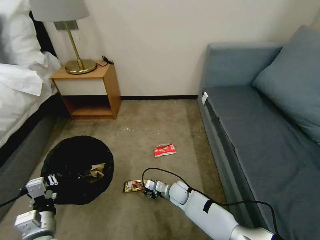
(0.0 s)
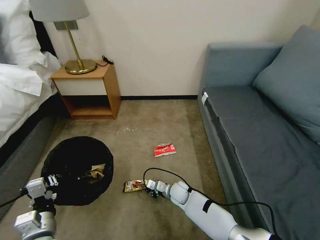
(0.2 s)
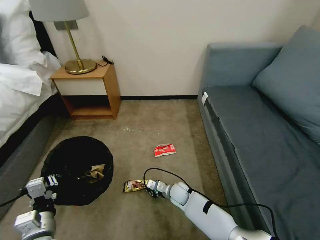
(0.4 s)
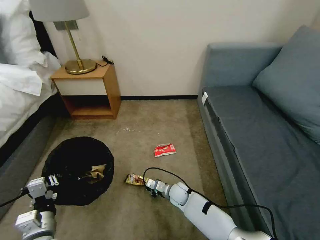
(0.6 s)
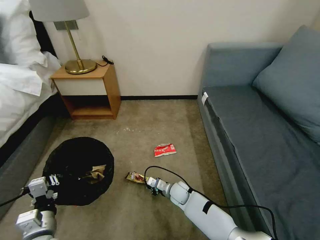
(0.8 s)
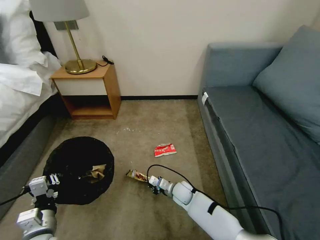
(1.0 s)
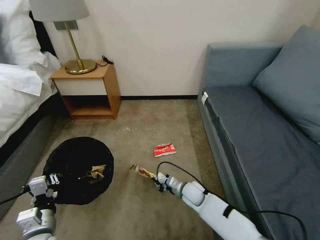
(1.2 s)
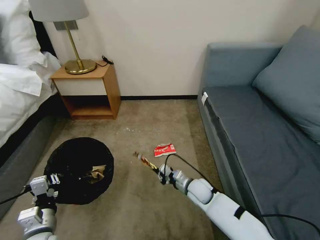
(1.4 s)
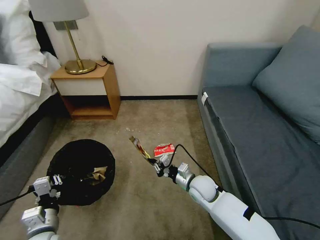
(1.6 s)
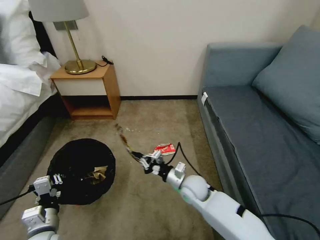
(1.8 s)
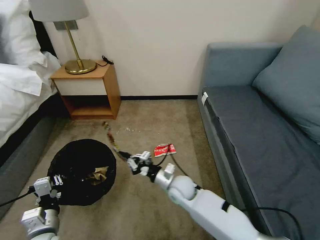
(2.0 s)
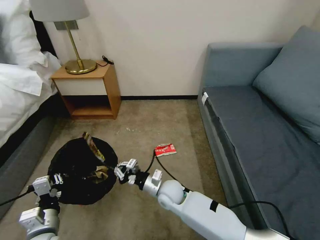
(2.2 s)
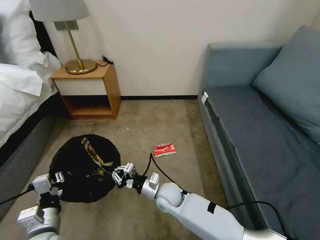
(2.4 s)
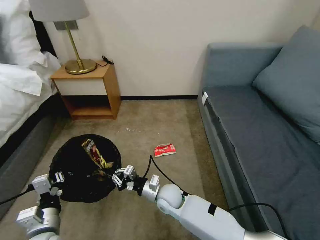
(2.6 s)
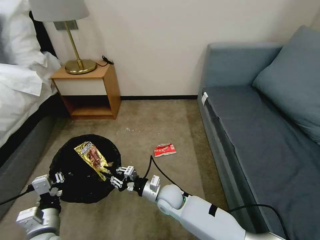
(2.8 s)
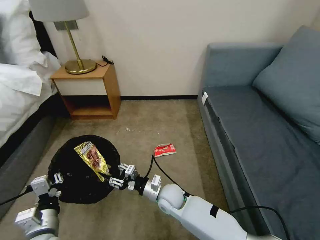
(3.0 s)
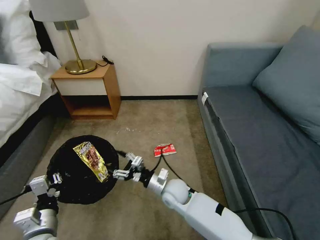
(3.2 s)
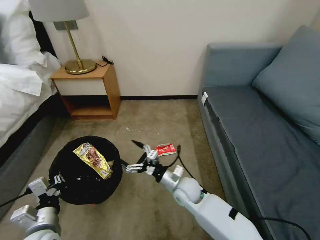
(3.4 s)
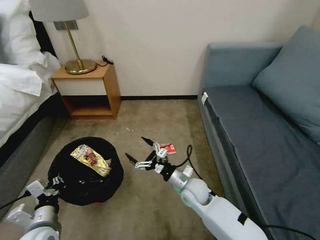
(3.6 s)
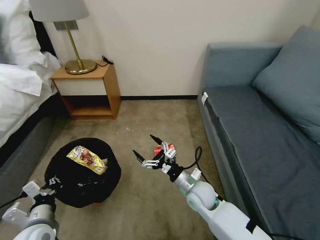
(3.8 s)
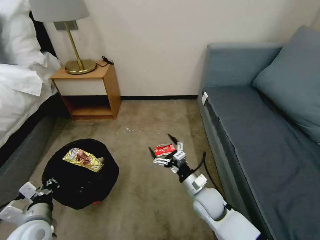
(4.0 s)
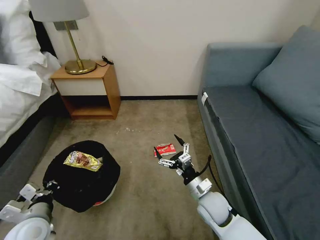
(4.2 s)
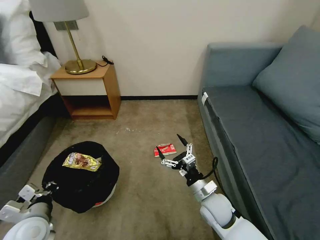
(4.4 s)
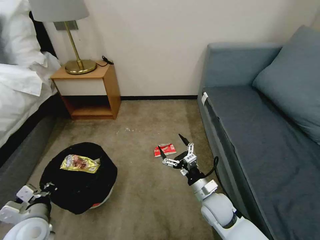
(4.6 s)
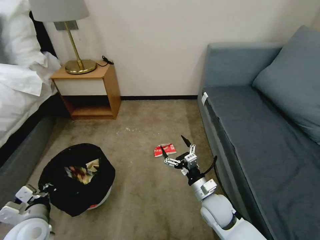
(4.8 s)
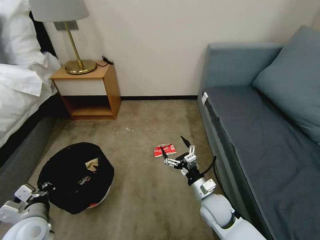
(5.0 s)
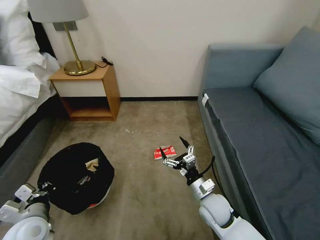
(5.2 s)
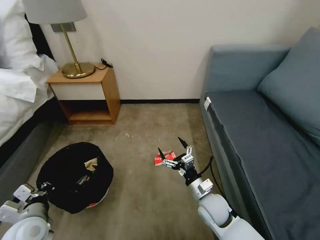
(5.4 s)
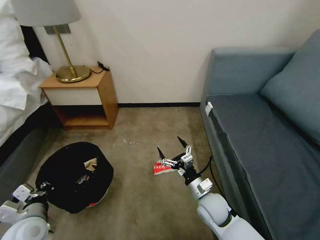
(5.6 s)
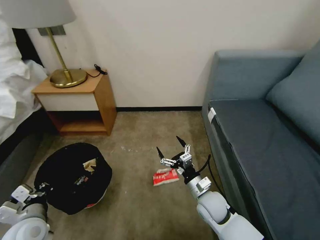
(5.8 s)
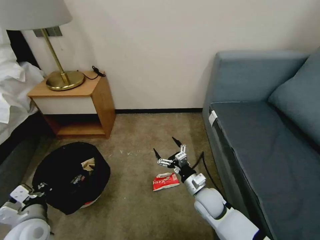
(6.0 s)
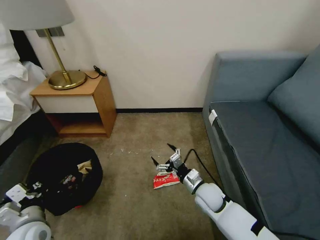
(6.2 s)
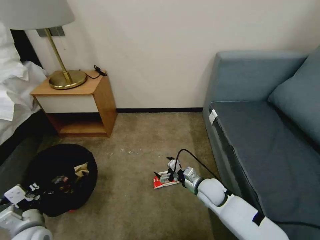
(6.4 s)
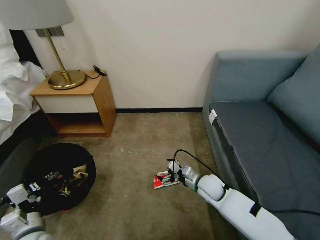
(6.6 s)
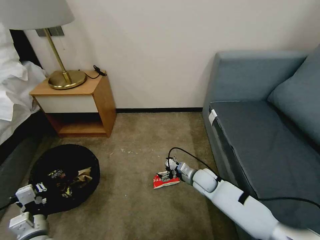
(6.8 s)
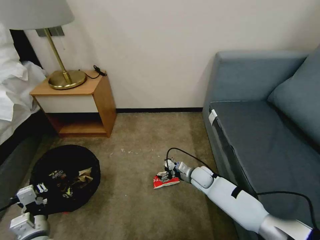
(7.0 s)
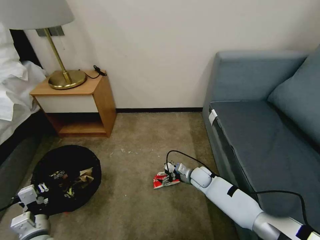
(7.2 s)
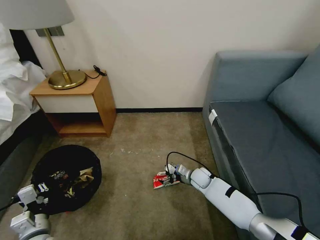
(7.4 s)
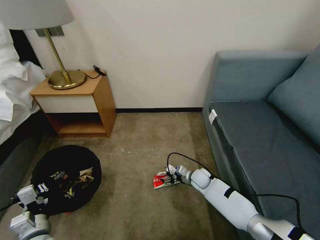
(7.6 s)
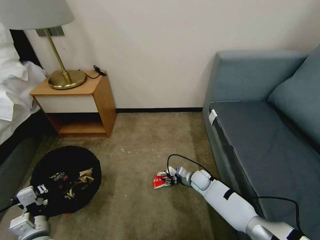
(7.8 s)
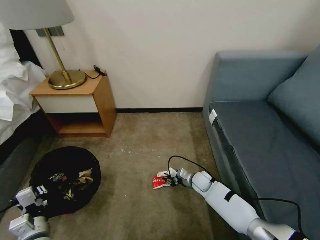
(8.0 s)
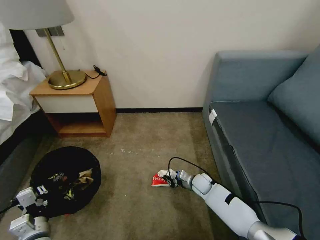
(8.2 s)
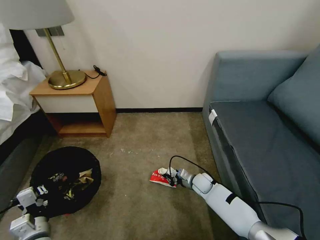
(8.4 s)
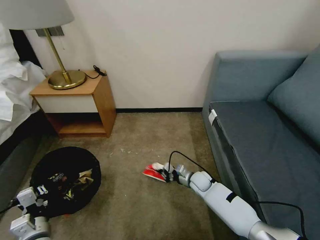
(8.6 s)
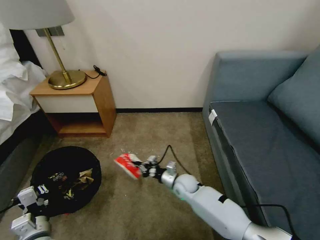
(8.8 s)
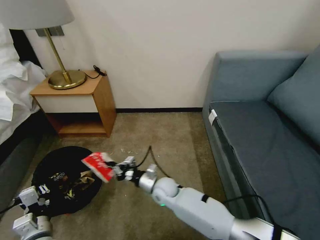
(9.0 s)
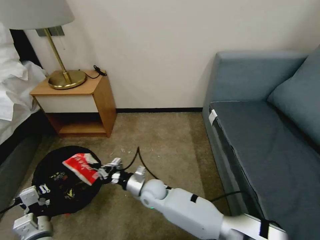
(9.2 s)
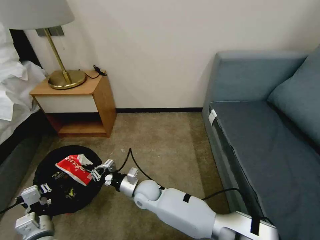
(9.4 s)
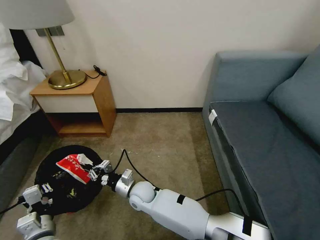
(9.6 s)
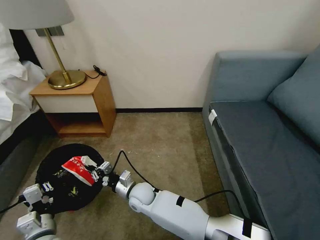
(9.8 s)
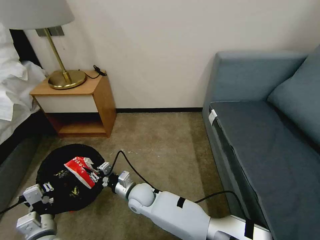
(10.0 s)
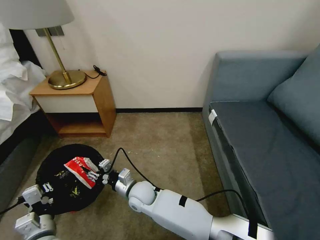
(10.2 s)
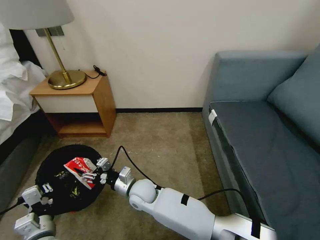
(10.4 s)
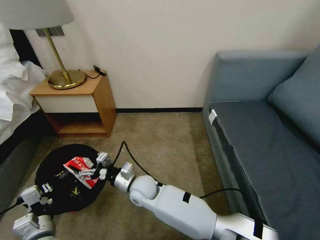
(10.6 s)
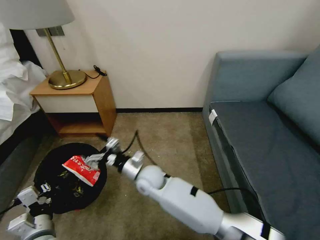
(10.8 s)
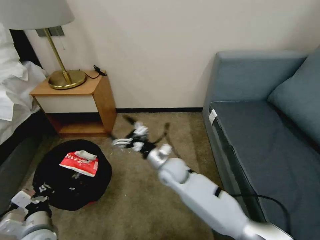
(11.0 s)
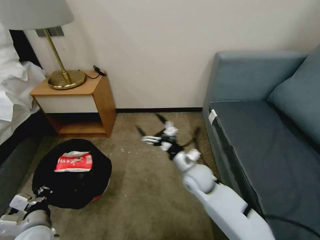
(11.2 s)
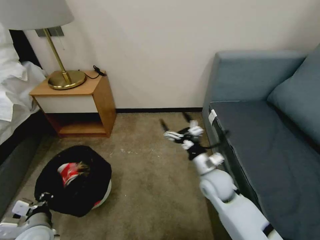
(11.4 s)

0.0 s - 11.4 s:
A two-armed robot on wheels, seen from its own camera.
Task of the whole recording: Pick up the trash bin, then pick up the garbage on the floor and place it into the trash bin.
0.0 s - 1.4 s: The right gripper is displaced to the right and upward by some 10 cm, and closes up.
1.4 s - 2.8 s: The right gripper heads to the left, covering about 10 cm.
2.8 s - 4.2 s: The left gripper changes place by some 5 cm. Meanwhile the right gripper goes about 15 cm to the right, and opens.
5.6 s - 7.2 s: The right gripper heads forward and downward, covering roughly 15 cm. Meanwhile the left gripper goes about 5 cm downward.
7.2 s - 8.6 s: The right gripper closes up.
8.6 s - 10.0 s: The right gripper travels to the left by about 25 cm.
10.0 s - 11.4 s: The right gripper moves to the right and upward, approximately 15 cm, and opens up.

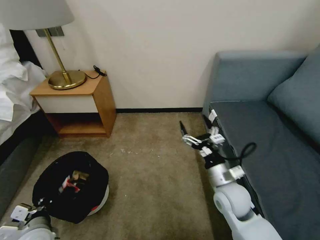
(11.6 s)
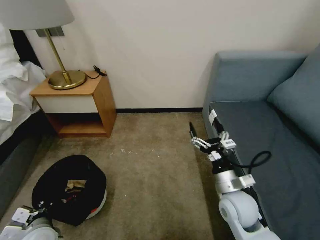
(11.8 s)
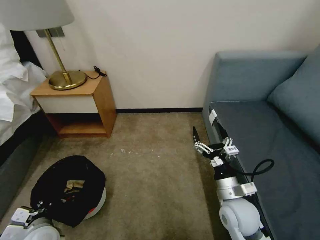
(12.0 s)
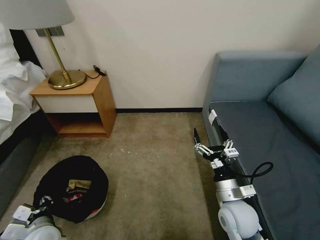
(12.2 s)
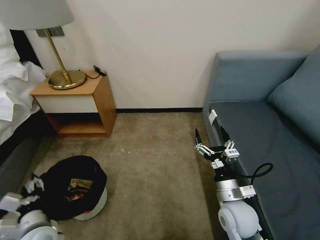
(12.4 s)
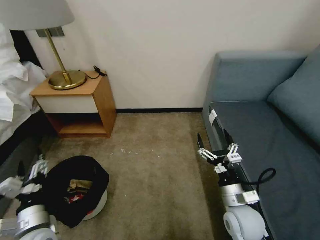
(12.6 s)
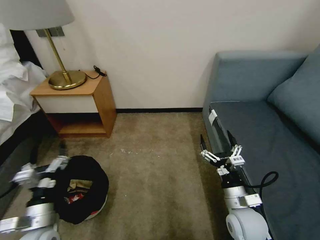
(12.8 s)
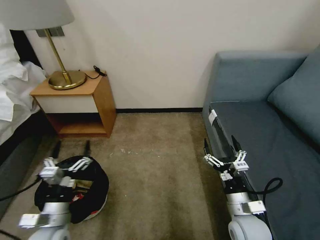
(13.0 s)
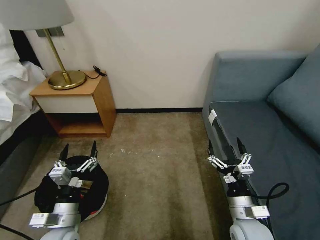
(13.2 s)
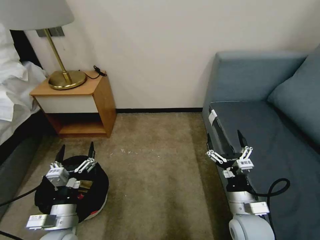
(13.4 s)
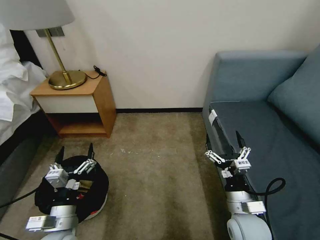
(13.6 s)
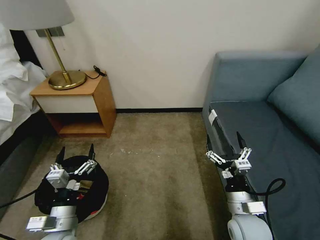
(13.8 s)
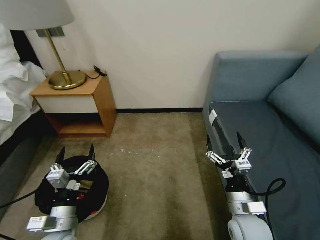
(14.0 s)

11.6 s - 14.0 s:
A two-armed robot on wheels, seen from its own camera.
Task of the whole recording: Pick up the trash bin, then pick up the garbage on the floor and place it into the trash bin.
11.6 s - 12.8 s: The left gripper opens, while the right gripper shifts approximately 15 cm backward and to the right.
12.8 s - 14.0 s: The left gripper goes approximately 5 cm to the right.

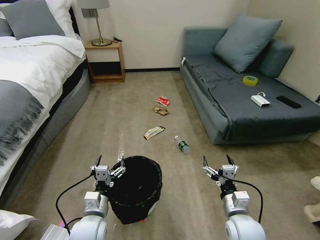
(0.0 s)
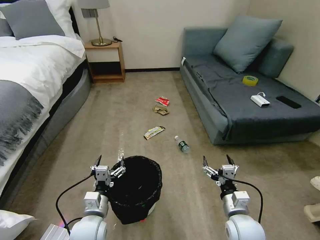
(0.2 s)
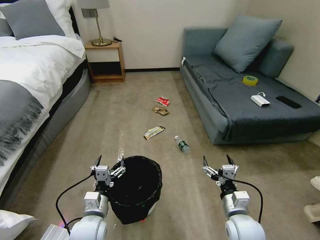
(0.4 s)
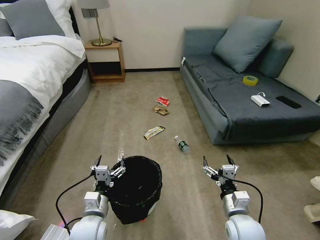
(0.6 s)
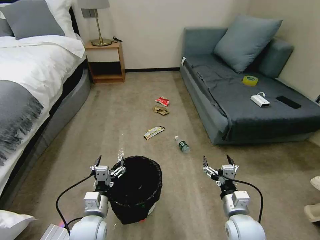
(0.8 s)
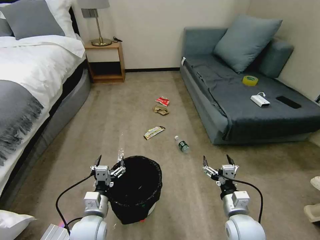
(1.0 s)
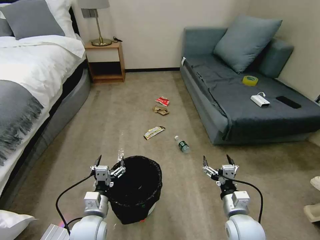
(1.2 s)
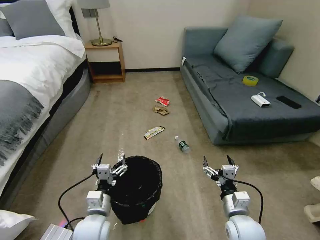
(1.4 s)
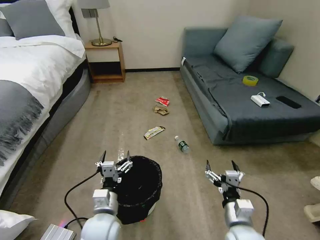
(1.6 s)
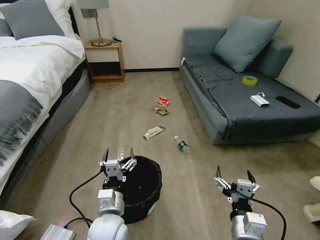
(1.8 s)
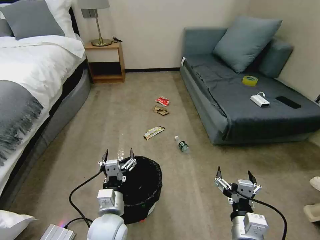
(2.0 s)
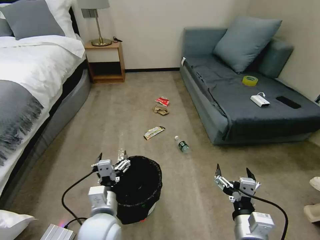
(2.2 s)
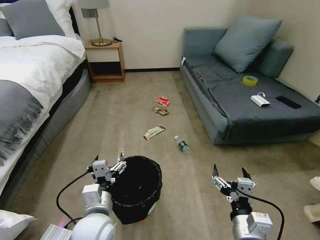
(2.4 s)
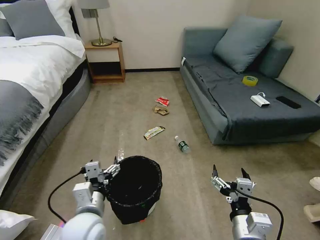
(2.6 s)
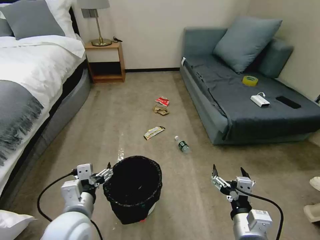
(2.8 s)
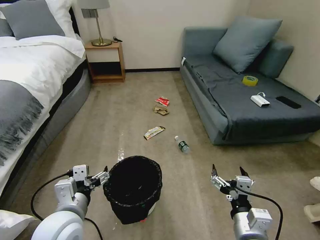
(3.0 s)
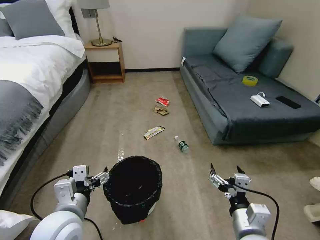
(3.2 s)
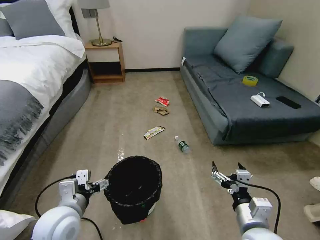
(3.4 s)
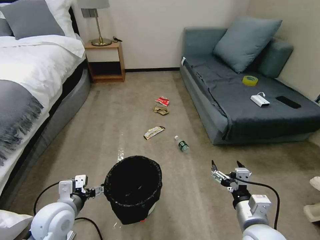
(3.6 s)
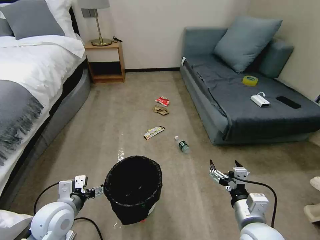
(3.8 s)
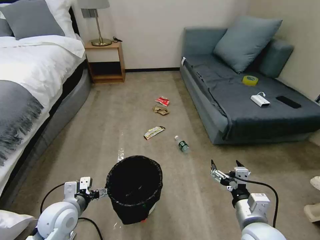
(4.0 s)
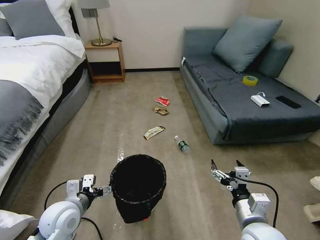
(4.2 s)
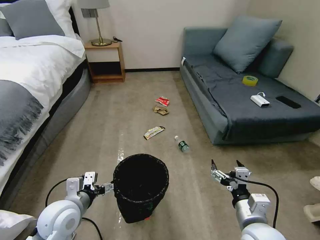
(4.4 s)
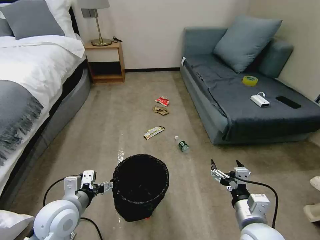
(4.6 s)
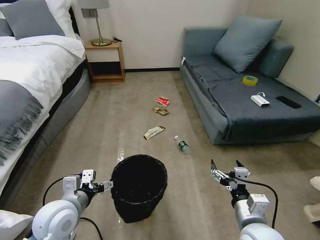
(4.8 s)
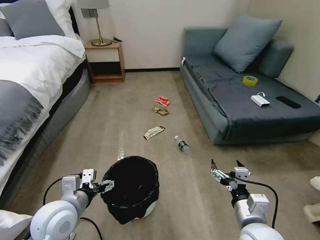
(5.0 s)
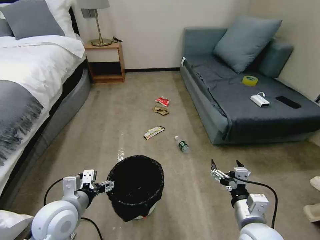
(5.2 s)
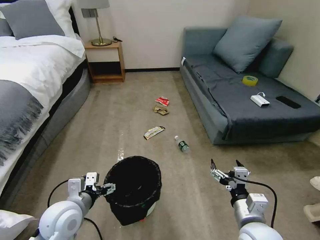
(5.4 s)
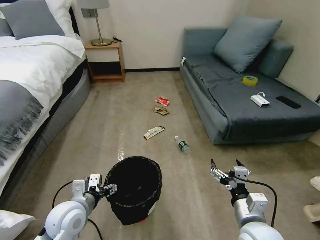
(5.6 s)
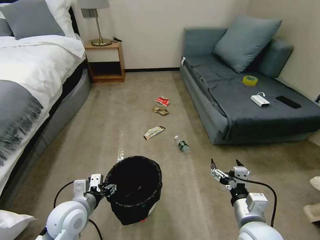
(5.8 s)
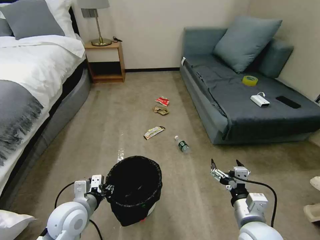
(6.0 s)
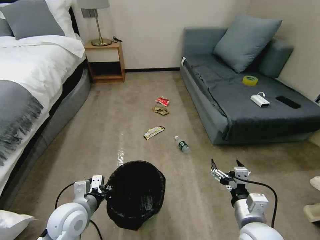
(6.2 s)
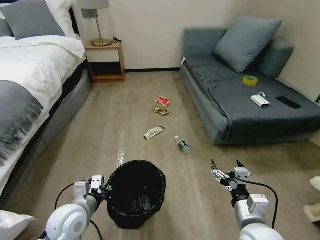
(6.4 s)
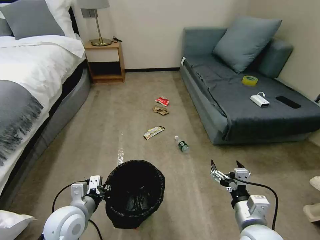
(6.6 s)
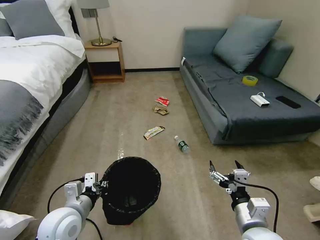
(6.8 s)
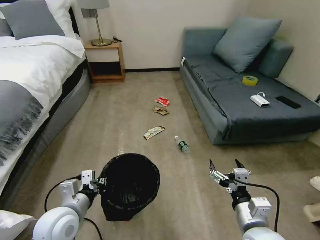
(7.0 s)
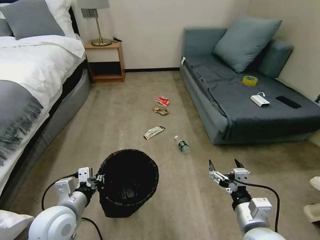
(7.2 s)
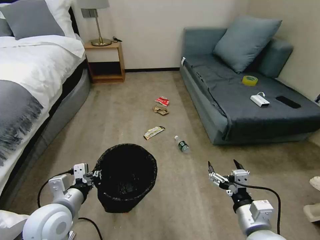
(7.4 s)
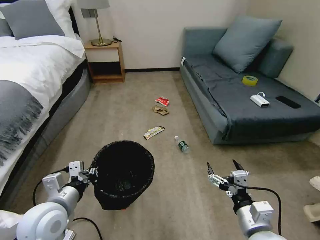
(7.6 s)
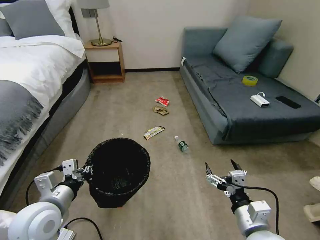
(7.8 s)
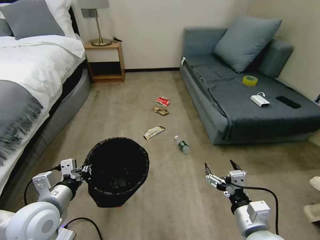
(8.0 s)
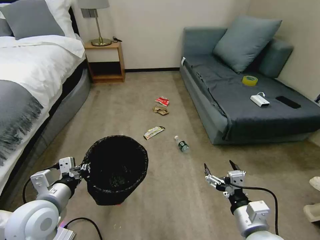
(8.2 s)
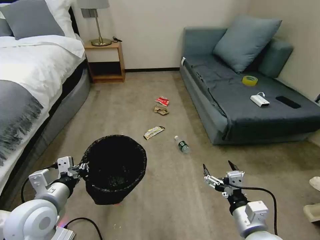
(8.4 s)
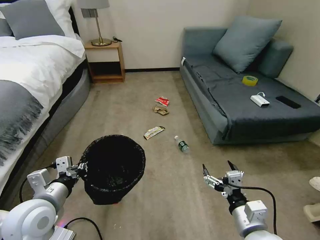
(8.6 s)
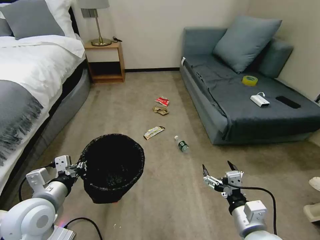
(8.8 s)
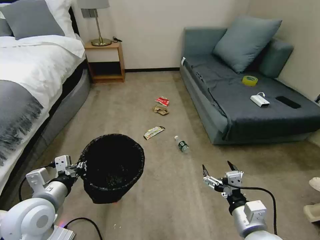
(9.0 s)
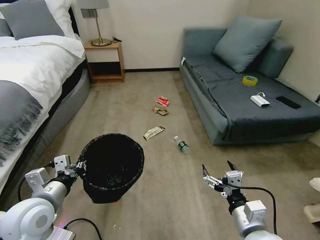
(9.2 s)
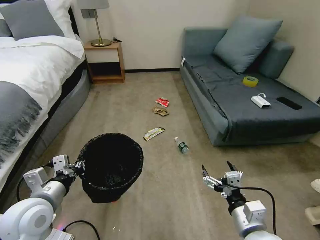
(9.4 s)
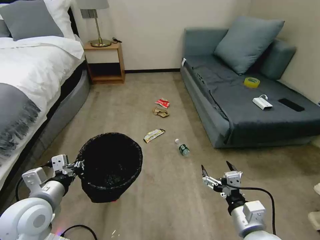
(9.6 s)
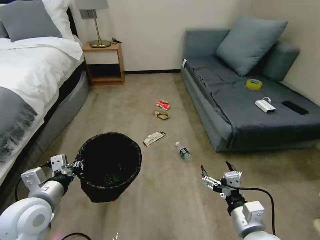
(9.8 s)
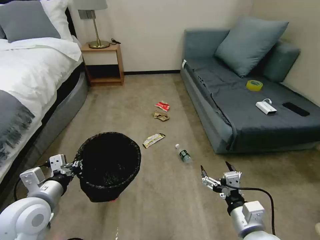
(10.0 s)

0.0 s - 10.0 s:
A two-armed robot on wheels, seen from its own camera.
Task of the whole recording: Pick up the trash bin, then pick up the garbage on the floor and place it into the trash bin.
1.4 s - 2.8 s: The right gripper is displaced backward and upward by roughly 10 cm. The left gripper shifts about 10 cm upward.
2.8 s - 4.2 s: The right gripper moves about 5 cm; the left gripper travels to the left and downward by about 10 cm.
4.2 s - 5.8 s: The left gripper closes up.
5.8 s - 7.2 s: The left gripper closes its fingers.
7.2 s - 8.6 s: The left gripper changes place by some 5 cm.
